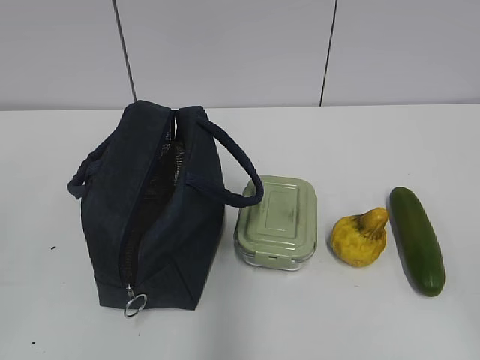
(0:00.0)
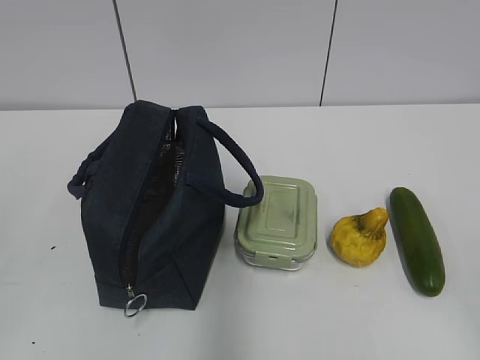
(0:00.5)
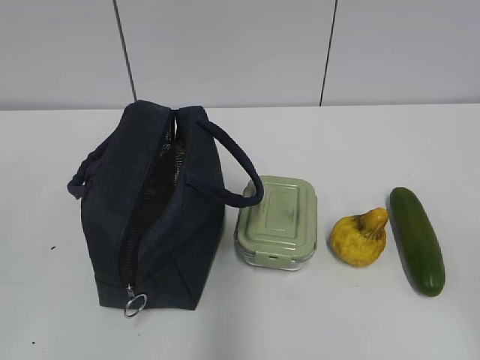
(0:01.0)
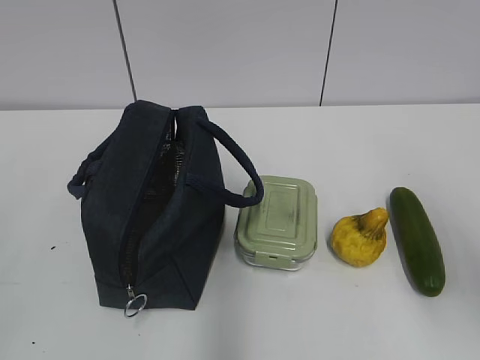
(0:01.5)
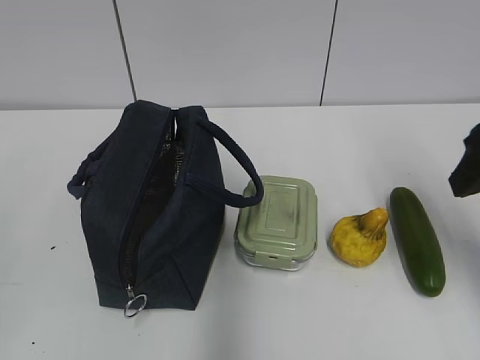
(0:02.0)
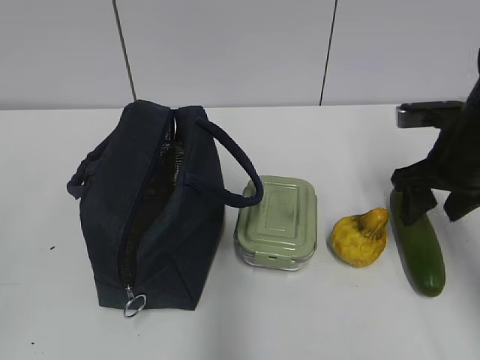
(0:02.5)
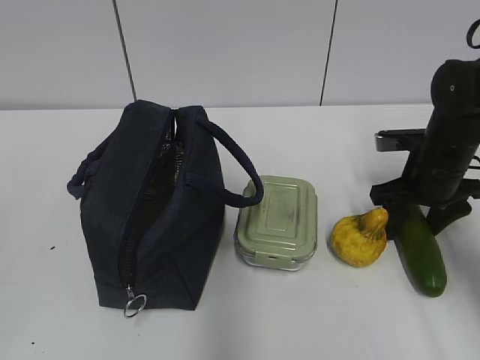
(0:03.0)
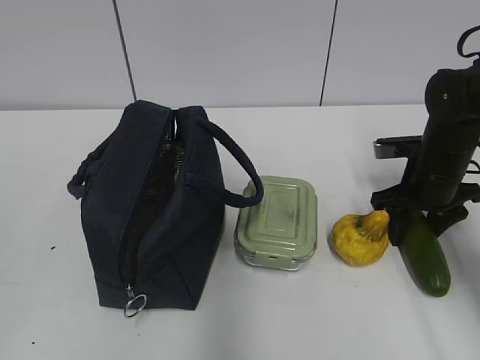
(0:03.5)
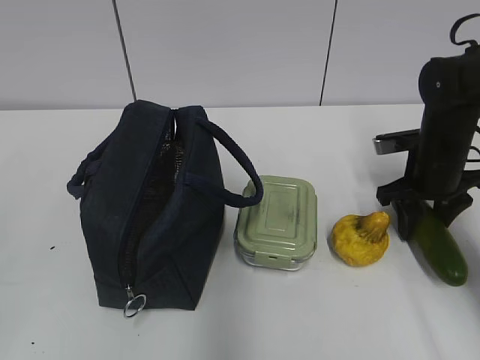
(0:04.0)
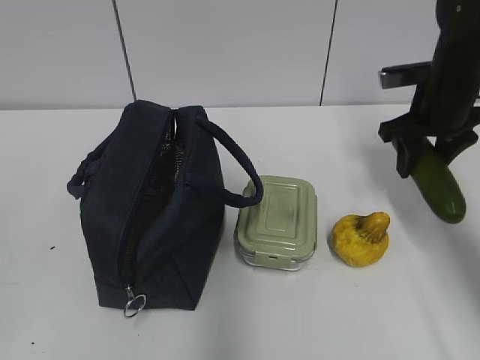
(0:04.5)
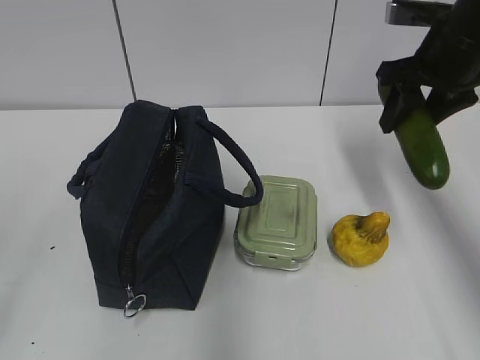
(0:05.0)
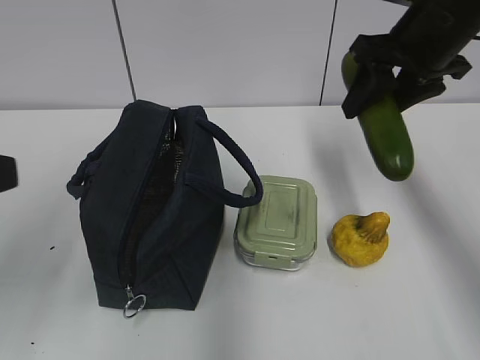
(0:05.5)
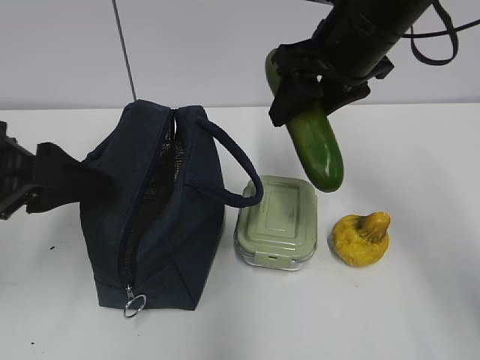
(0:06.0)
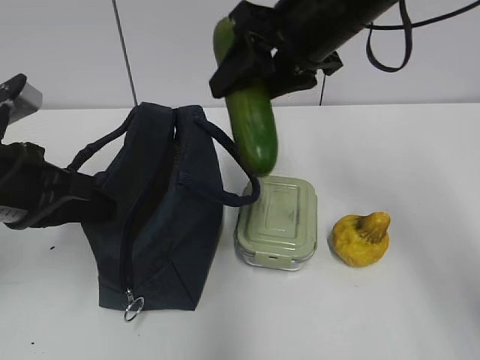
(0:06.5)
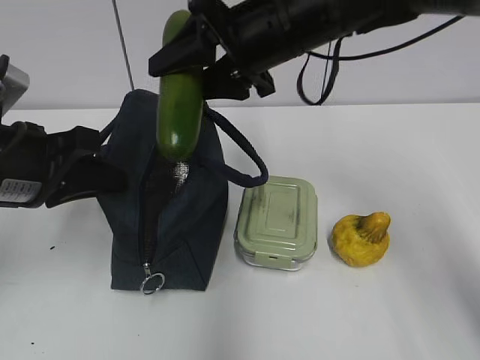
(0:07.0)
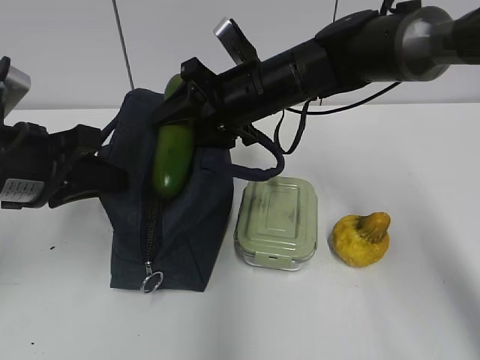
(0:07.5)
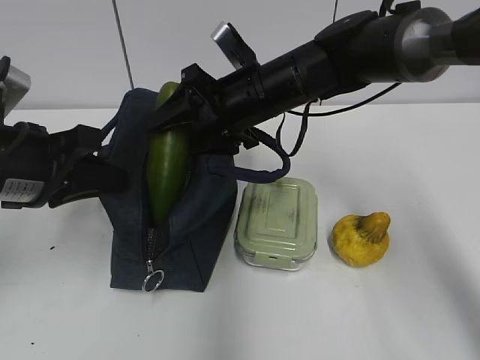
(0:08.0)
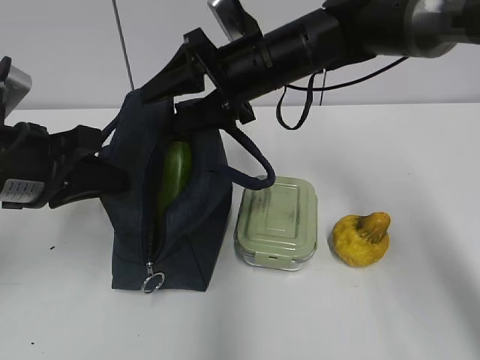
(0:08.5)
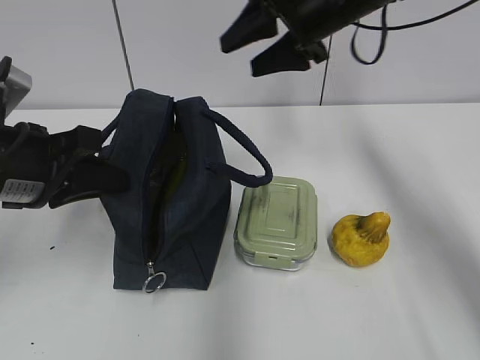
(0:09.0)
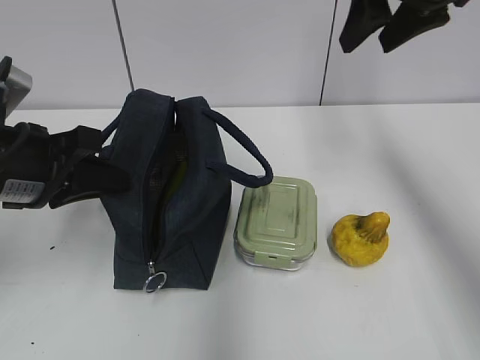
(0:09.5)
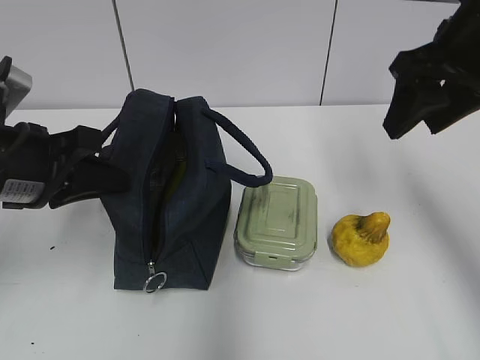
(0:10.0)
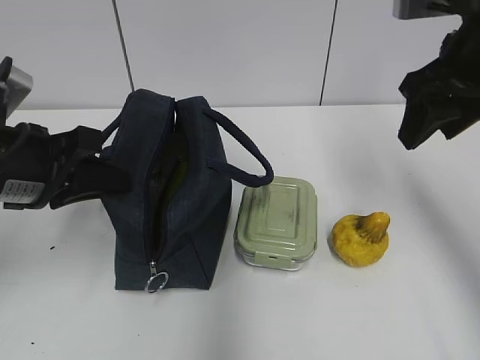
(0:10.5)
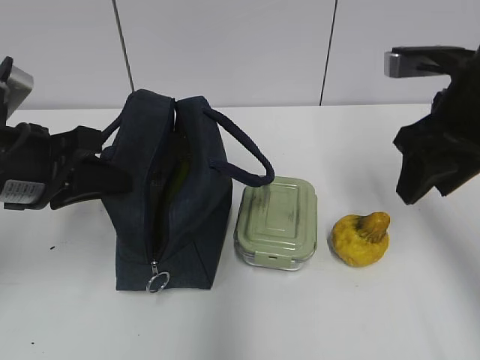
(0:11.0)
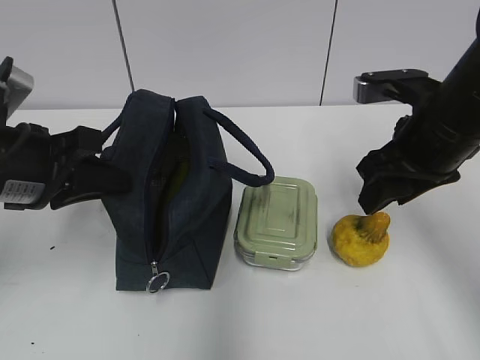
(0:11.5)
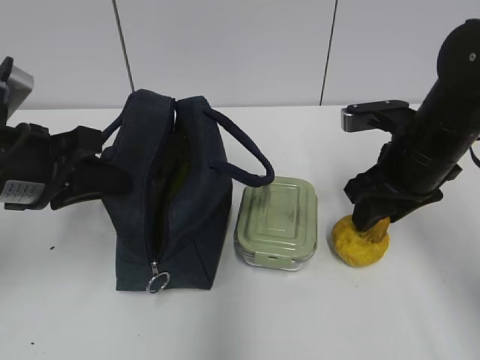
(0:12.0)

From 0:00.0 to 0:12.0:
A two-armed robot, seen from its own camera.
Step, from 0:00.0 to 0:03.5: Grab the cucumber with your right hand.
Step, from 0:04.0 to 0:06.0: Grab the lunch bag with your left hand.
Step, from 0:06.5 to 0:08.5: Place it into the bag with your right hand.
From 0:02.0 to 0:04.0: The right gripper moves downward and forward, roughly 20 cm.
From 0:04.0 to 0:06.0: The right gripper goes about 20 cm upward and to the left. The left gripper goes about 25 cm forward and to the right.
From 0:06.0 to 0:08.0: The right gripper goes roughly 10 cm downward and to the left, while the left gripper closes its fingers.
From 0:08.0 to 0:10.0: The right gripper goes approximately 20 cm to the right, upward and backward.
From 0:10.0 to 0:12.0: The right gripper is displaced downward by roughly 15 cm.

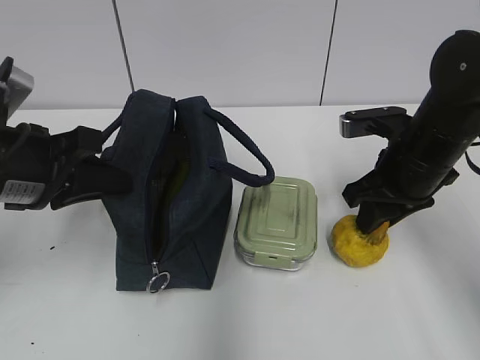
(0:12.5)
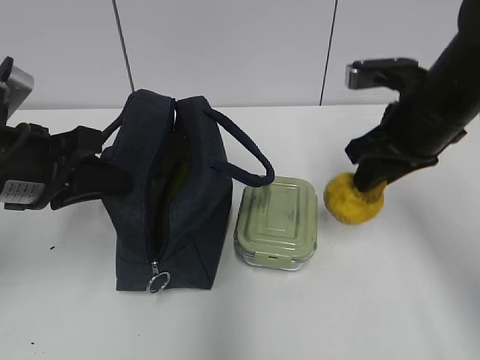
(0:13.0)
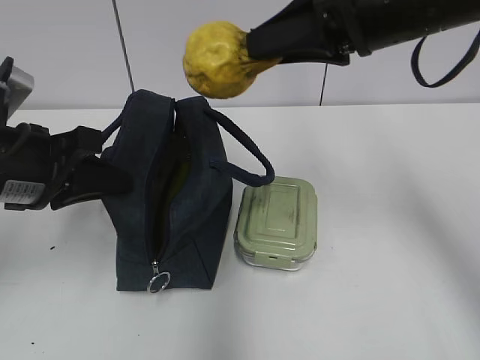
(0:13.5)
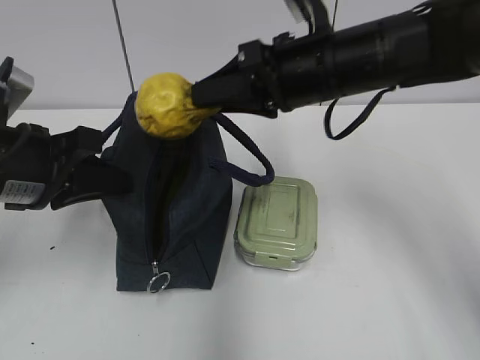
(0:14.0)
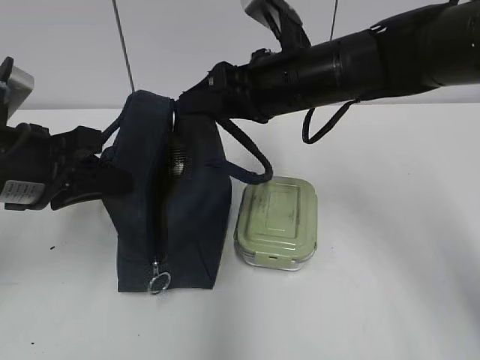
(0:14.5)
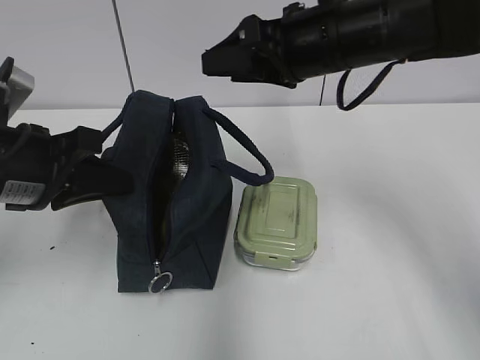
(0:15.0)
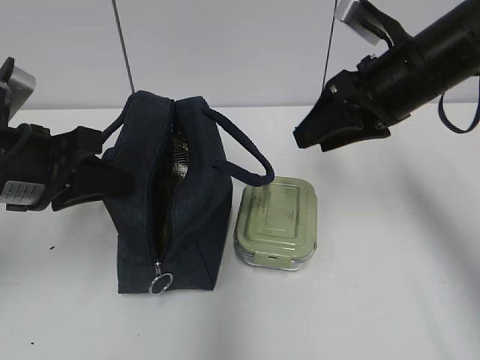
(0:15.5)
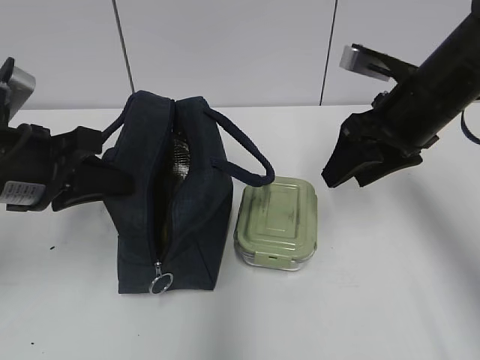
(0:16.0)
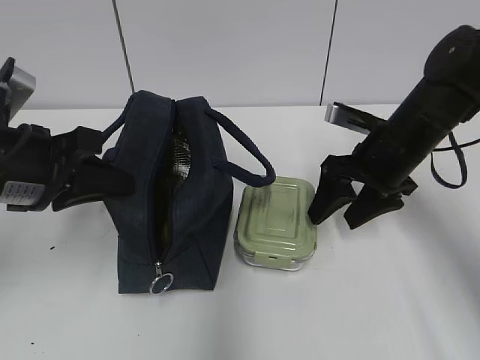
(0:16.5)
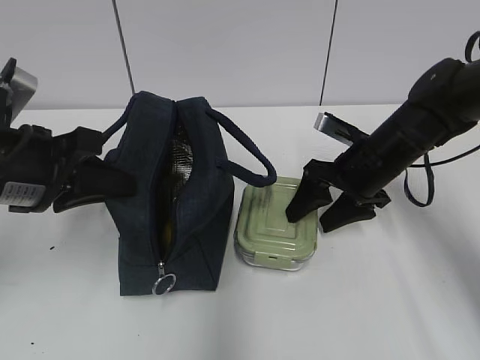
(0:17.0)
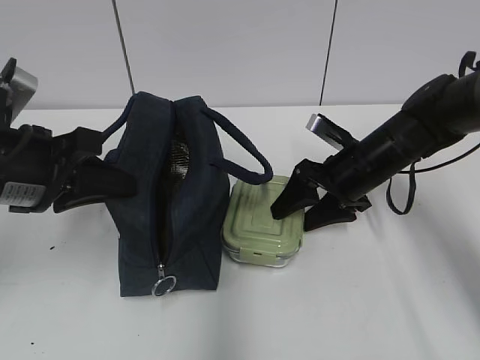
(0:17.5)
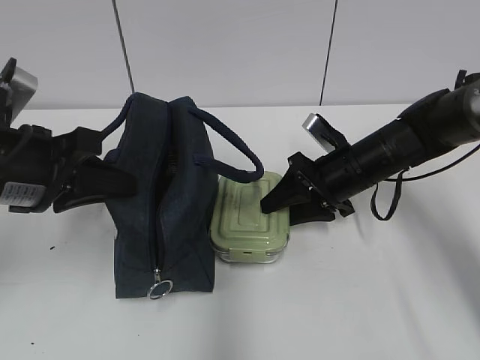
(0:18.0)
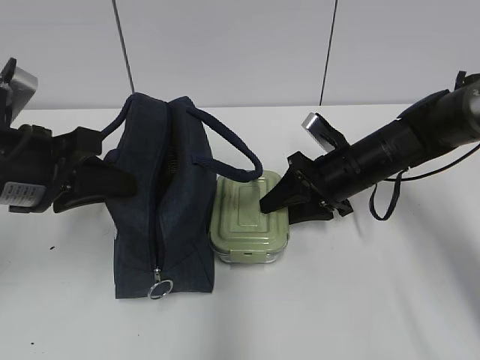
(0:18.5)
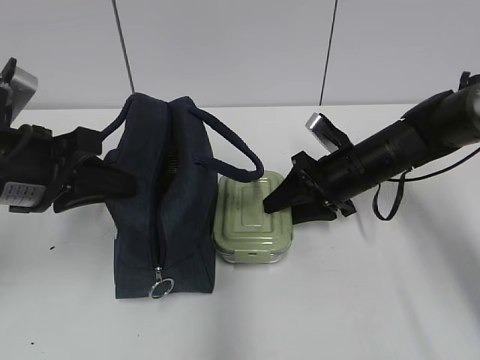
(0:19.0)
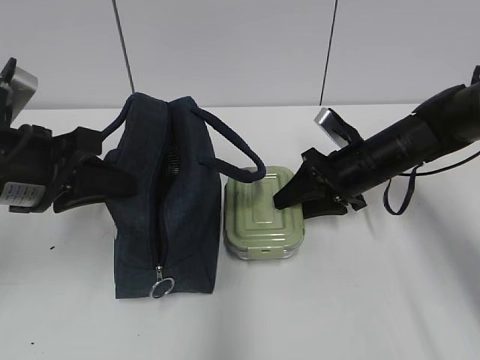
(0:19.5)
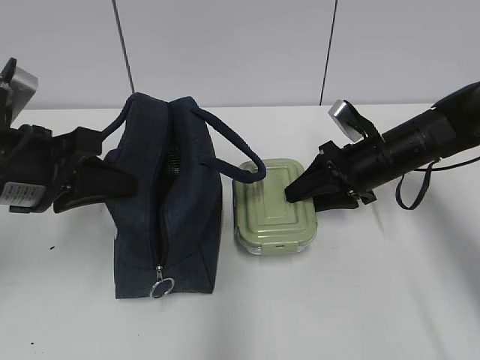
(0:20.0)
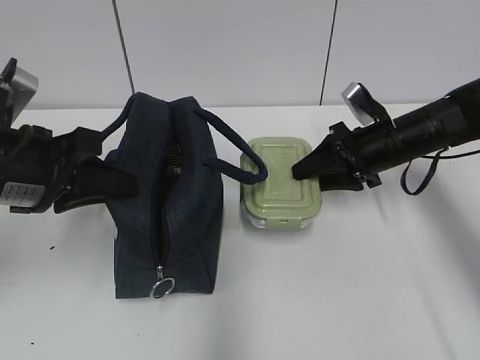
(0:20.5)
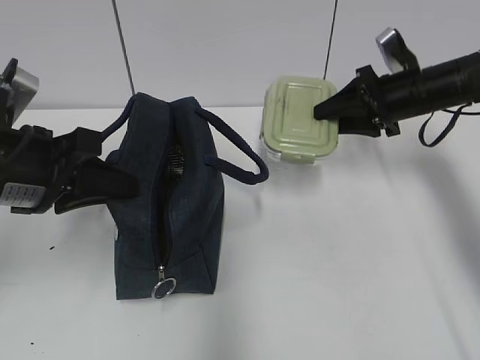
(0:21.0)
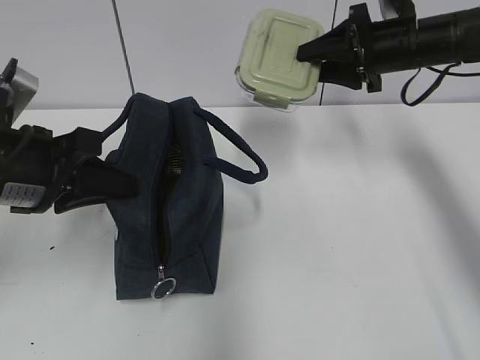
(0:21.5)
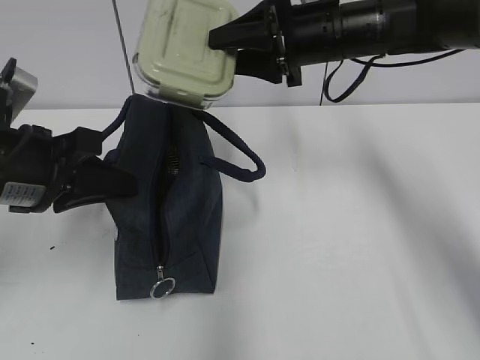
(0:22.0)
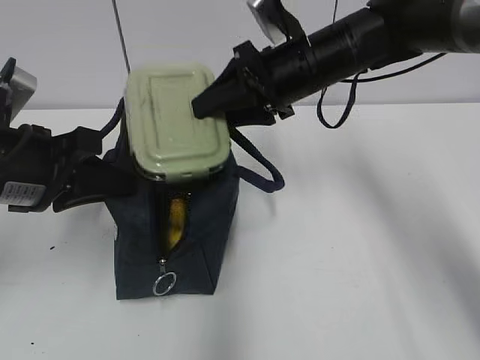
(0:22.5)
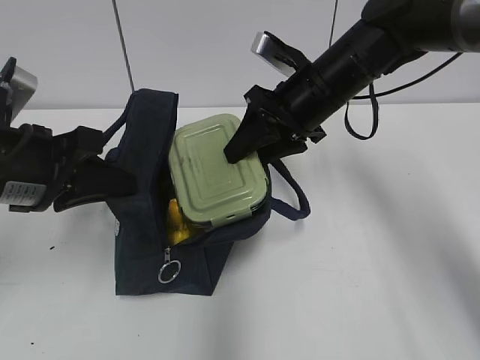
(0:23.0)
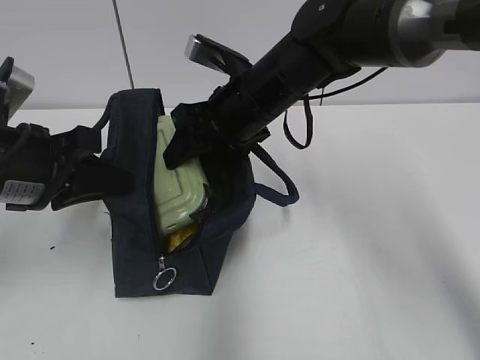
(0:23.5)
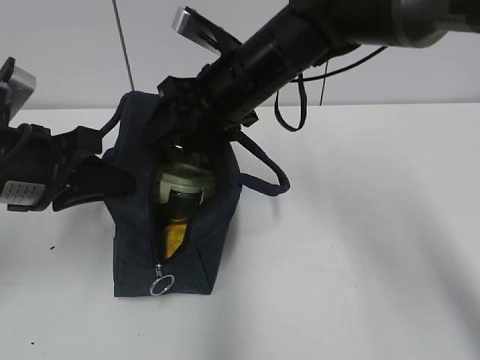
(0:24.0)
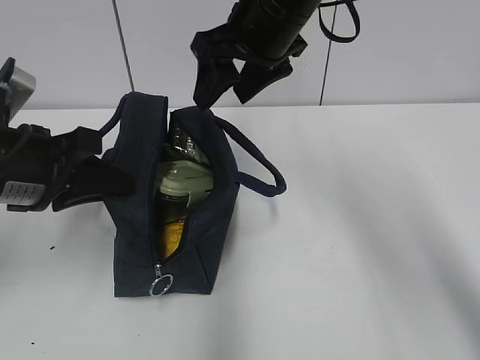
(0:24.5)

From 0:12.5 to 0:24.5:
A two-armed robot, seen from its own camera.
Step, from 0:13.0 to 0:14.0: Place it into the bag with your right hand.
Step, from 0:14.5 to 0:19.5: Grab the lunch box with your right hand.
From 0:12.5 to 0:14.5: The right gripper goes some 15 cm to the left and upward.
From 0:14.5 to 0:16.5: The right gripper moves to the right and downward, roughly 15 cm.
From 0:16.5 to 0:18.5: The right gripper heads downward, covering approximately 5 cm, and closes.
From 0:18.5 to 0:20.5: The right gripper goes approximately 5 cm to the right.
From 0:20.5 to 0:22.5: The right gripper shifts about 15 cm to the left and upward.
From 0:22.5 to 0:24.5: The right gripper travels upward by about 5 cm.

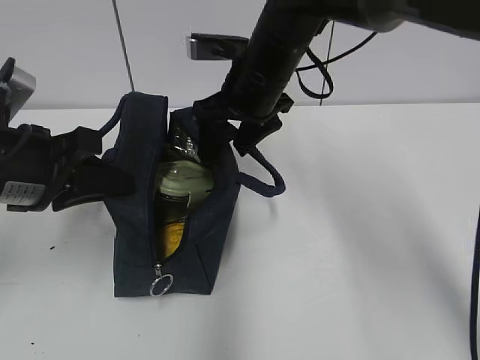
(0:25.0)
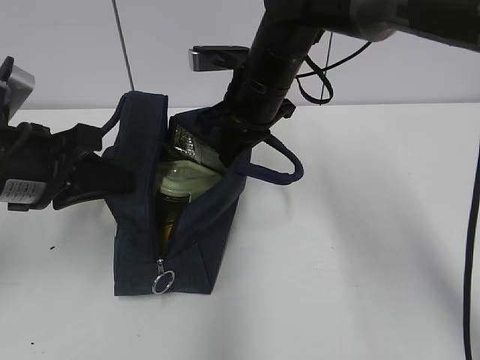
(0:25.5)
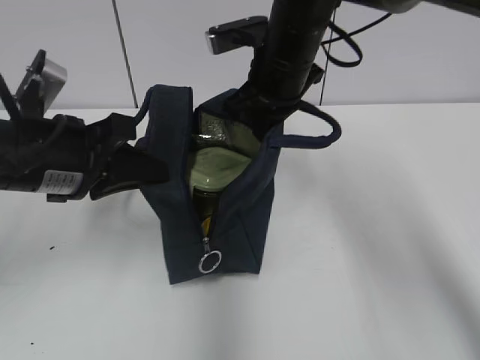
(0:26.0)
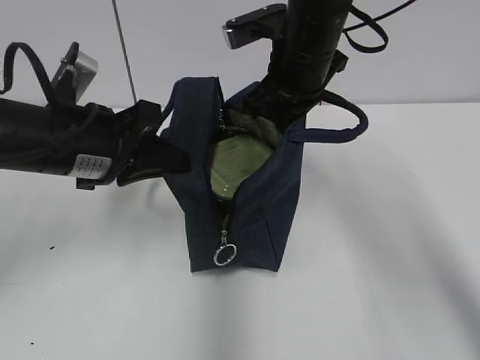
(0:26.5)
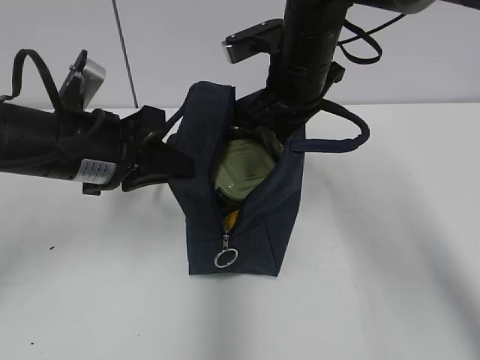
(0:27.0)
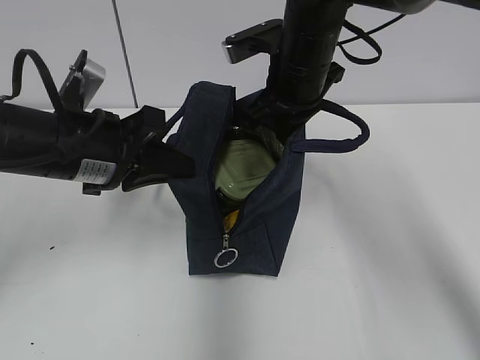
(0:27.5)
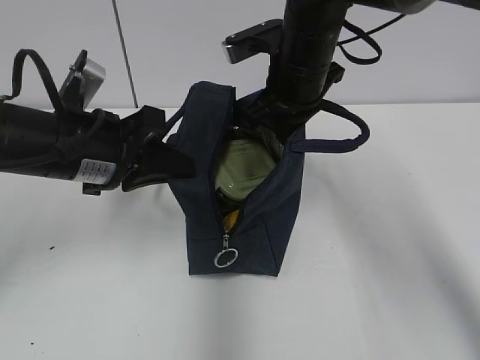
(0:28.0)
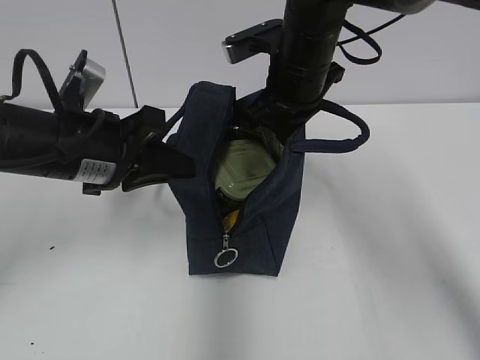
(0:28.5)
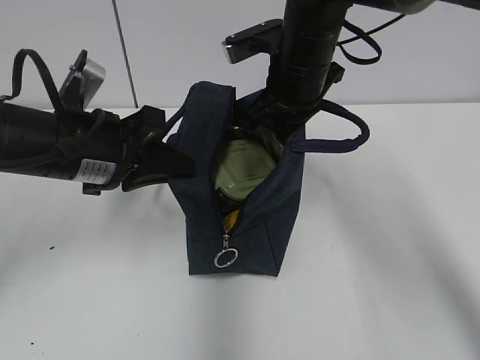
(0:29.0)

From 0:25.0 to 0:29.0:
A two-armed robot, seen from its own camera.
Step, from 0:25.5 to 0:28.0: Move the lunch bag to the right.
From 0:25.0 to 0:27.0: The left gripper shifts by roughly 5 cm, while the right gripper closes up.
From 0:27.0 to 0:29.0: Neither gripper changes place.
